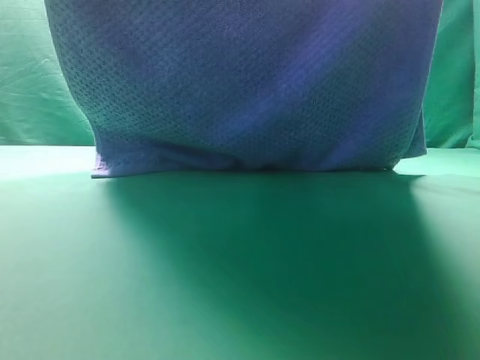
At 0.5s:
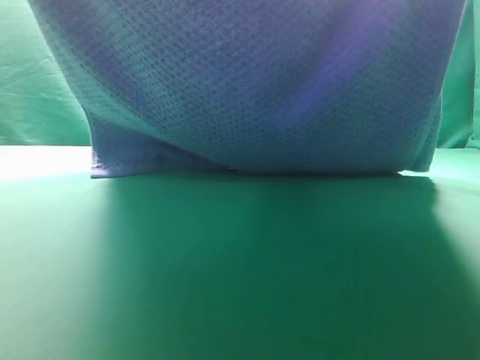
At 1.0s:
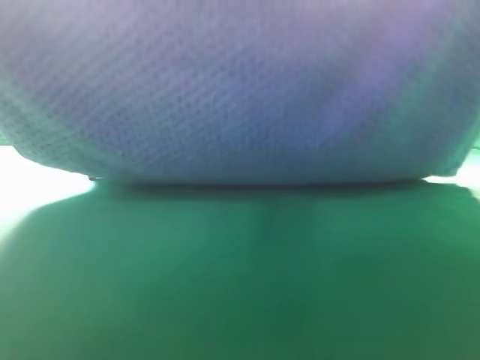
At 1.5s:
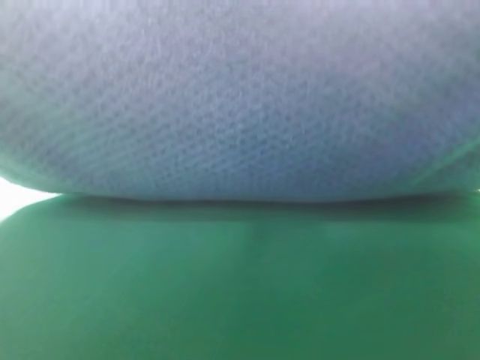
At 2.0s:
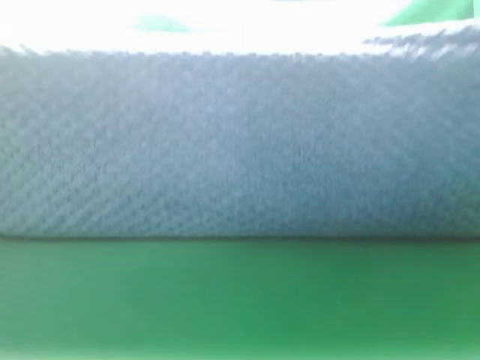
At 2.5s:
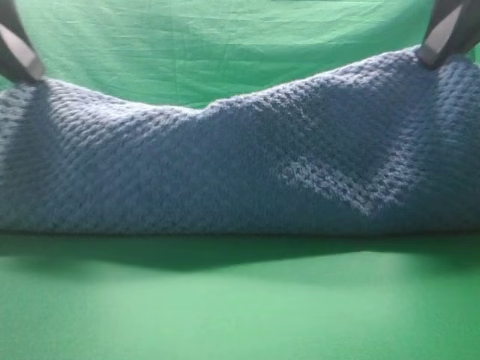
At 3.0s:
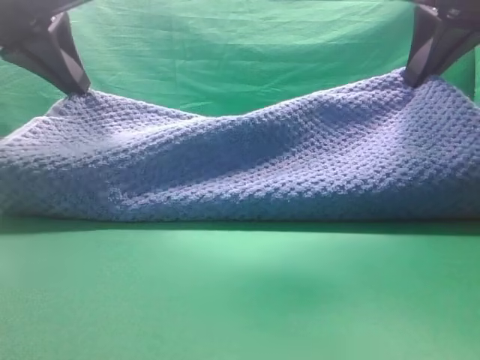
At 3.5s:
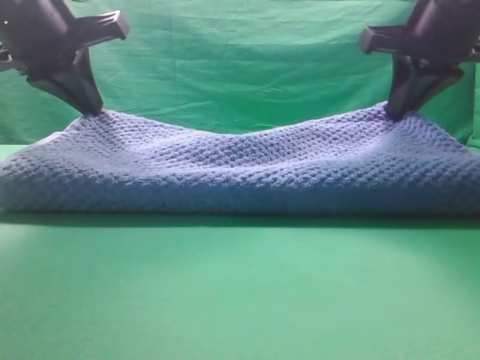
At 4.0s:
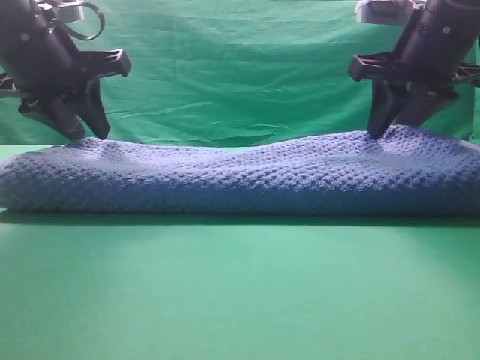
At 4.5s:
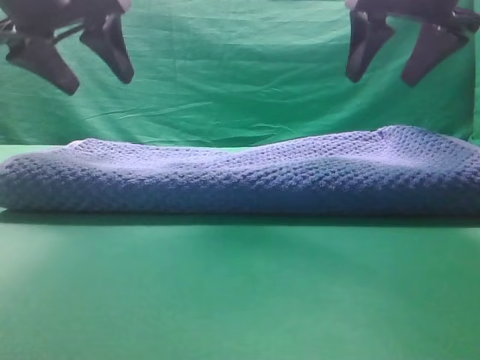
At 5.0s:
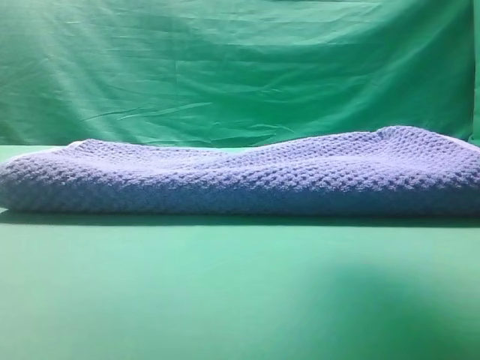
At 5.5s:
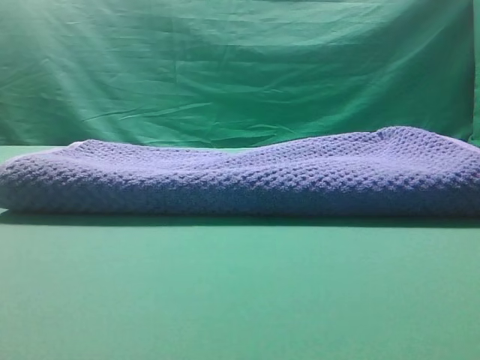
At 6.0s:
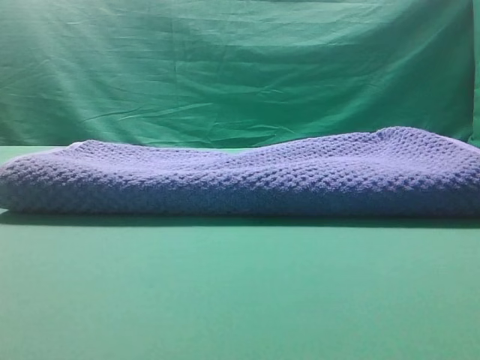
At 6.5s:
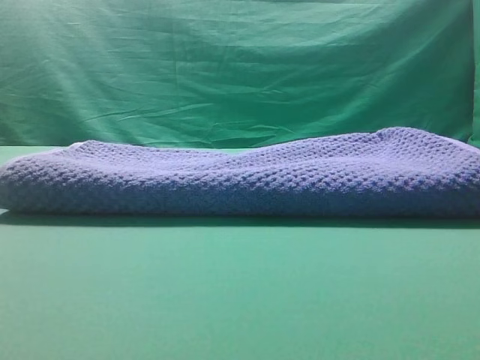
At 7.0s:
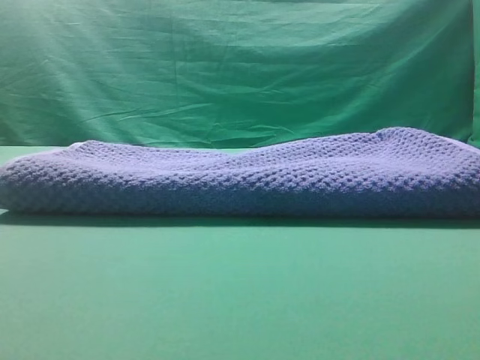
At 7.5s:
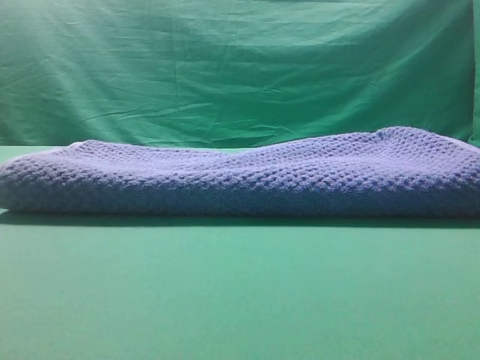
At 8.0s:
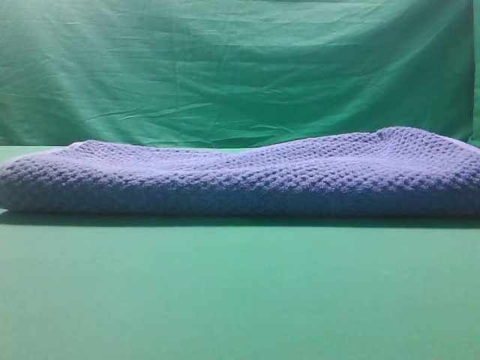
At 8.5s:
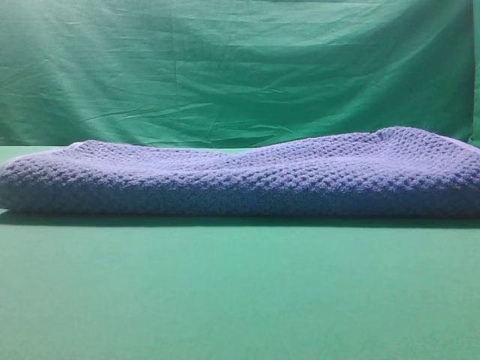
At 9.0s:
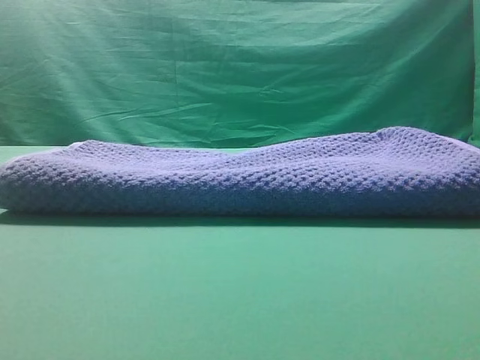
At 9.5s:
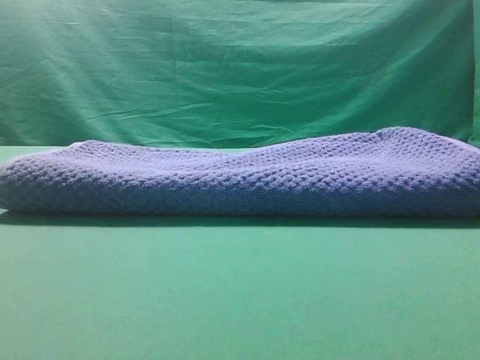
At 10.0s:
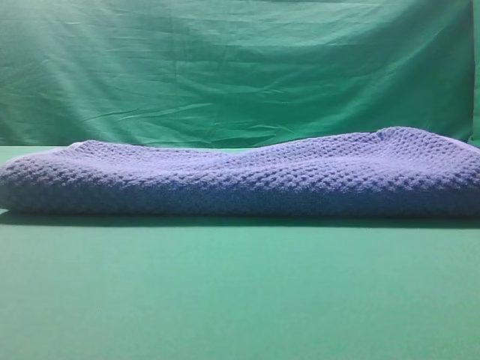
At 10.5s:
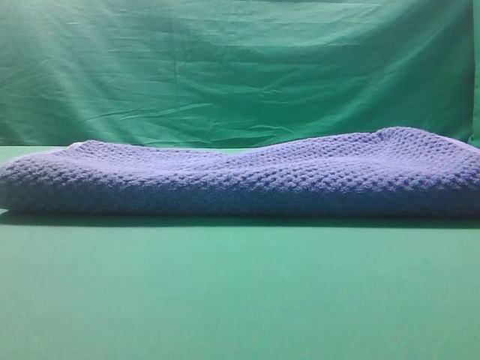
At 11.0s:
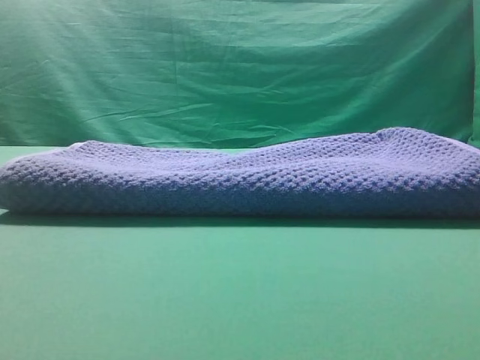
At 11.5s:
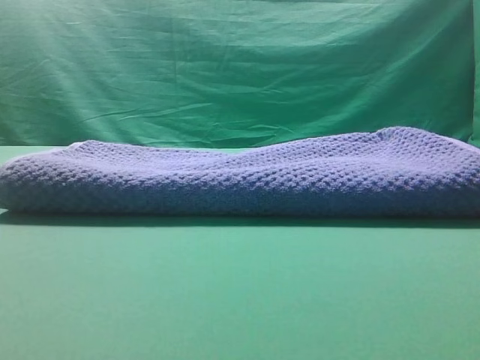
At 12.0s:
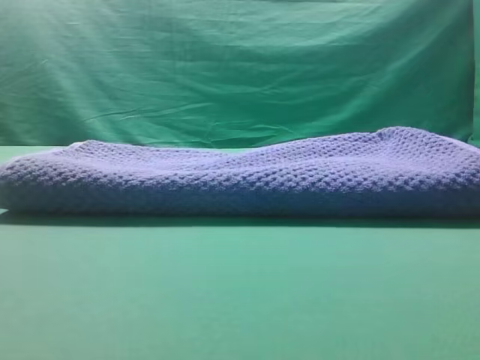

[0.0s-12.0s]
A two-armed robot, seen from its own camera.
Task of the whole recording: fold the towel on the table twice.
Step, 0.0s to 4.5s: Fold the towel twice on the table.

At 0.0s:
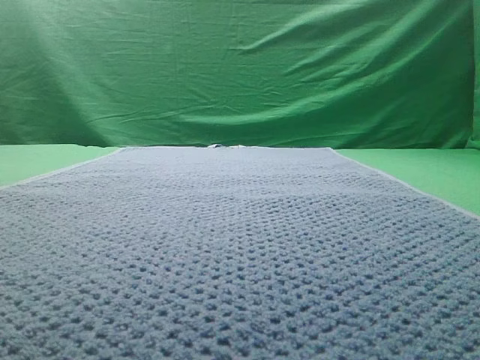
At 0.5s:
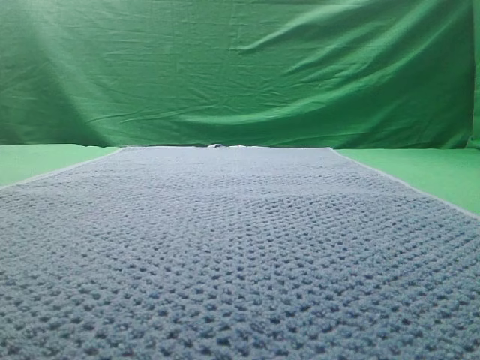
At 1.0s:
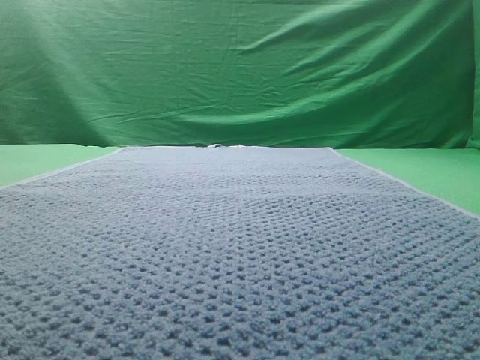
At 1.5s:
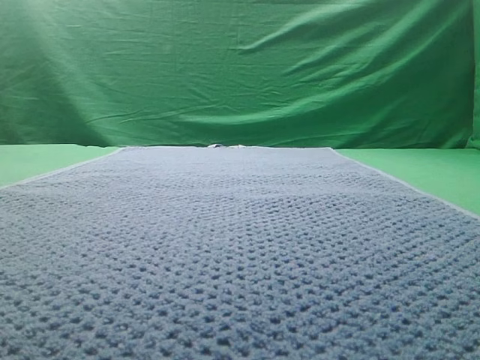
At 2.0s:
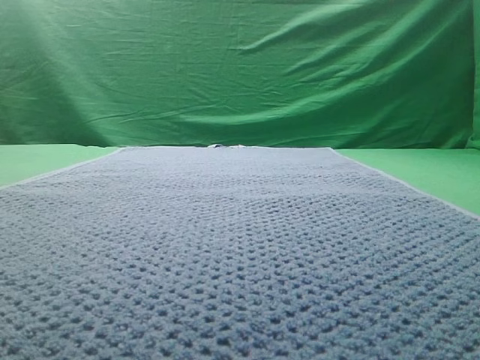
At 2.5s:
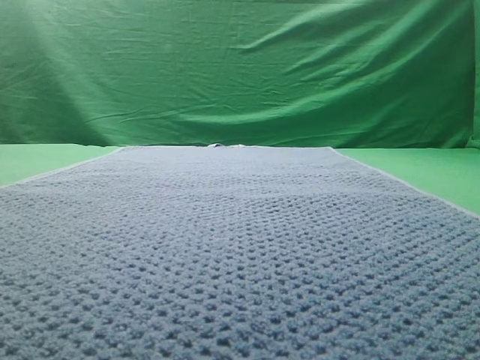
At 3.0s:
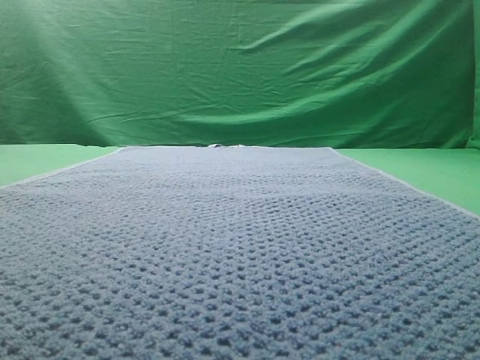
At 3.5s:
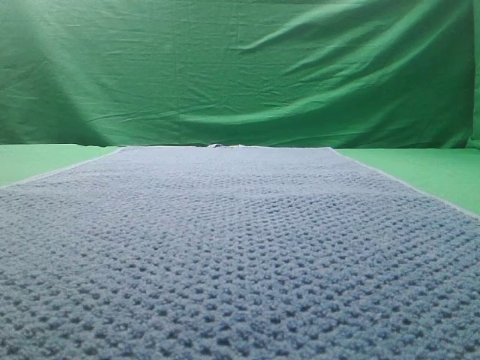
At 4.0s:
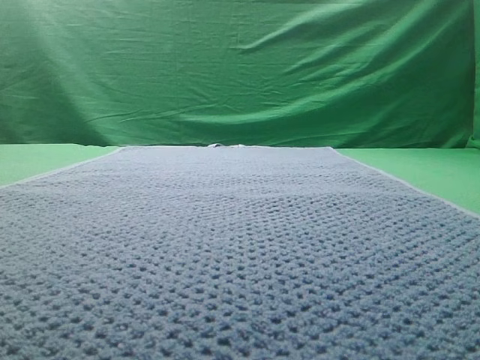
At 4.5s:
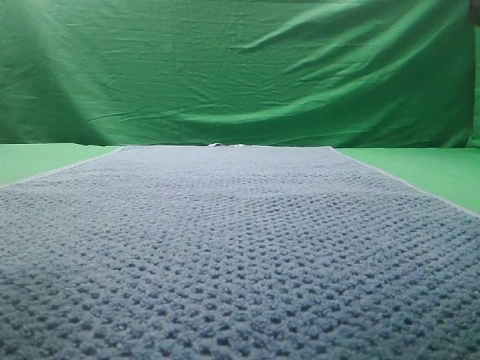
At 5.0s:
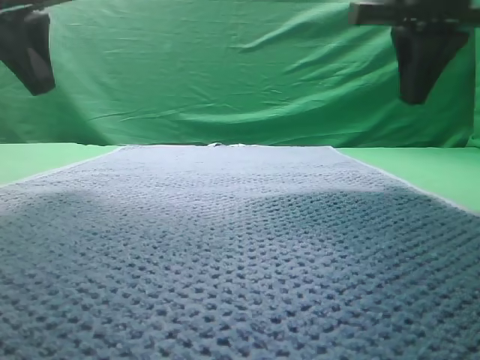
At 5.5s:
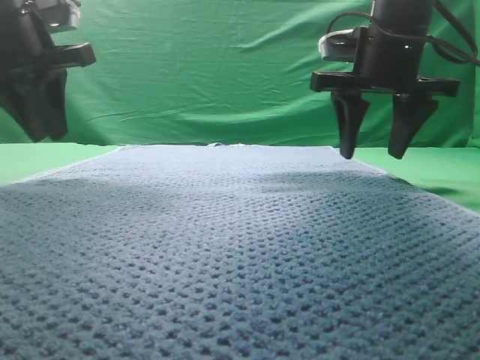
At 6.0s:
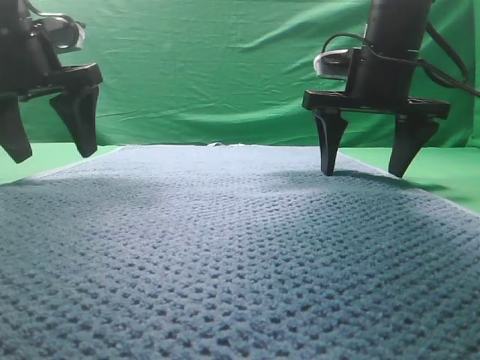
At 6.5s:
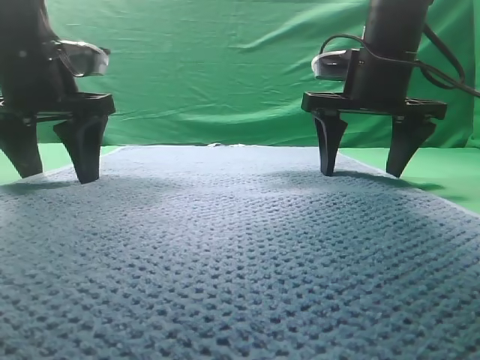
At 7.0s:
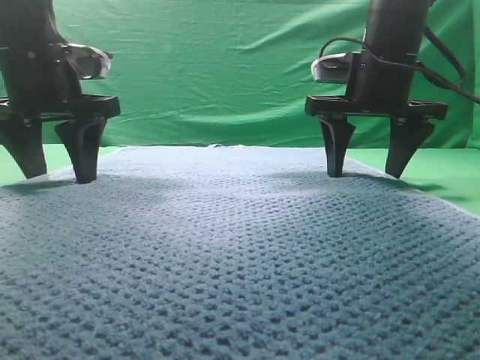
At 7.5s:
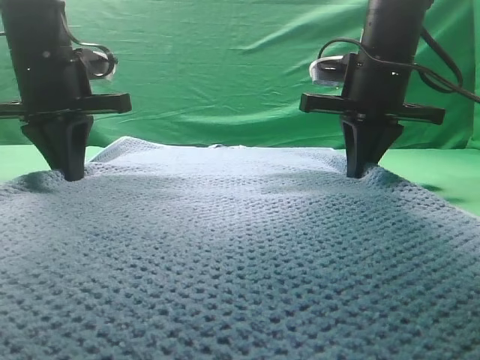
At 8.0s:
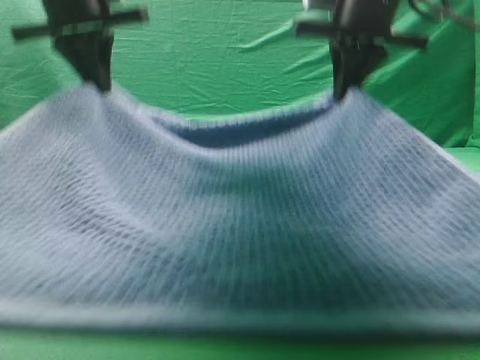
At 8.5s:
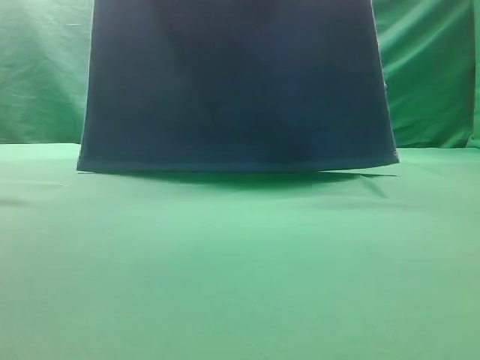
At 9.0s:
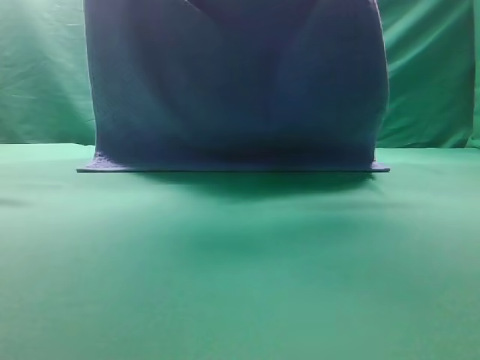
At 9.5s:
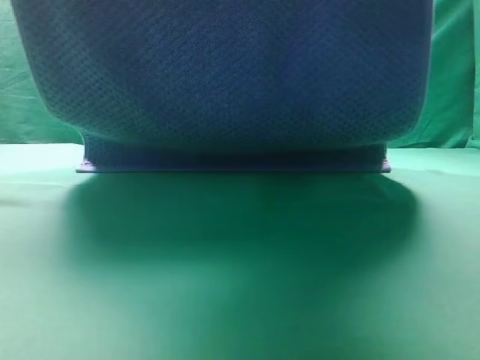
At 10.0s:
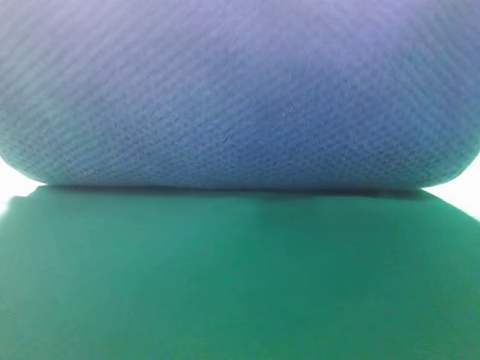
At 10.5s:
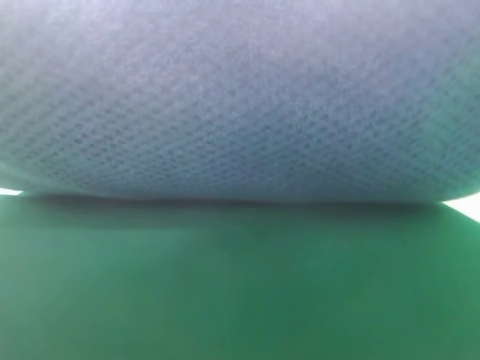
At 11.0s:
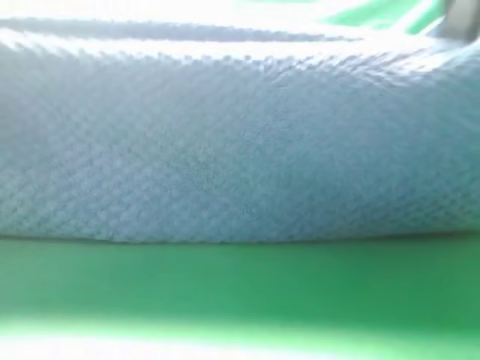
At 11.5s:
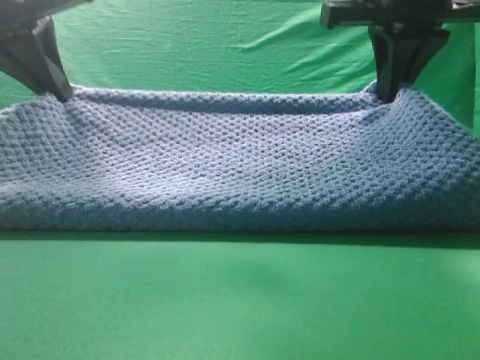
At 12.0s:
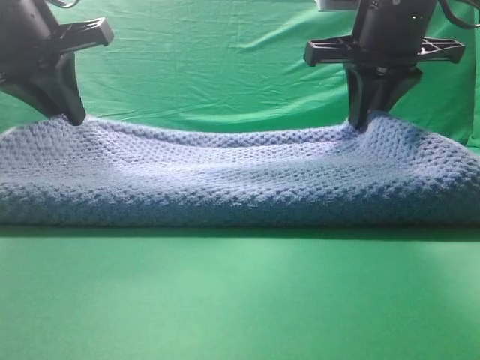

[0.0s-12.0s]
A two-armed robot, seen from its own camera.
Task of the whole recording: fold the towel on the table twice.
Step, 0.0s to 8.0s: pick up the towel with two arm.

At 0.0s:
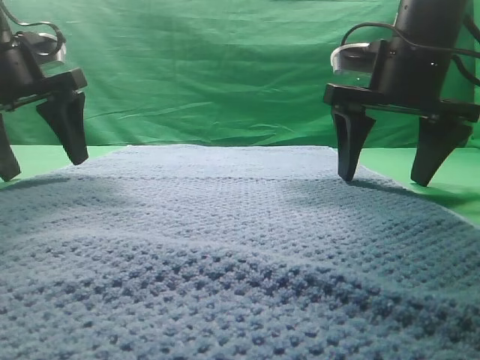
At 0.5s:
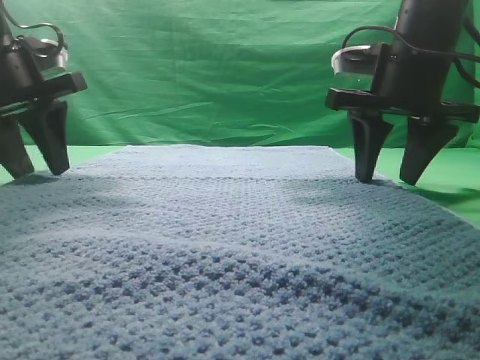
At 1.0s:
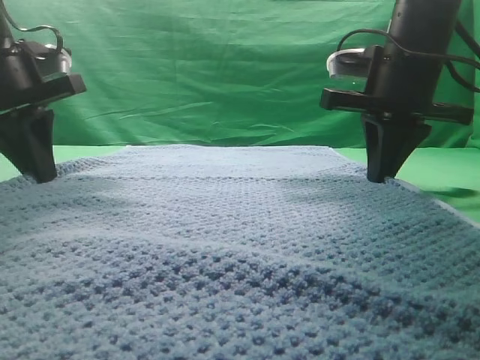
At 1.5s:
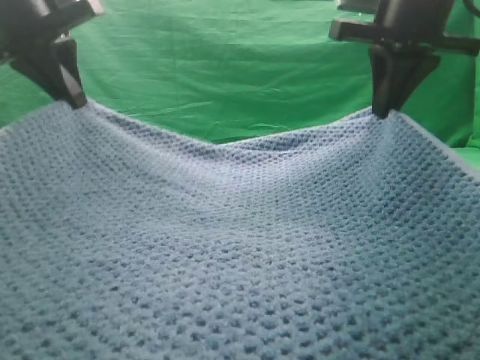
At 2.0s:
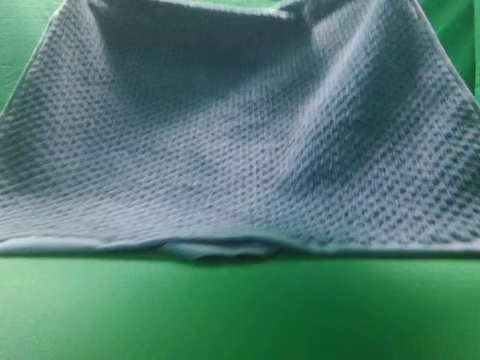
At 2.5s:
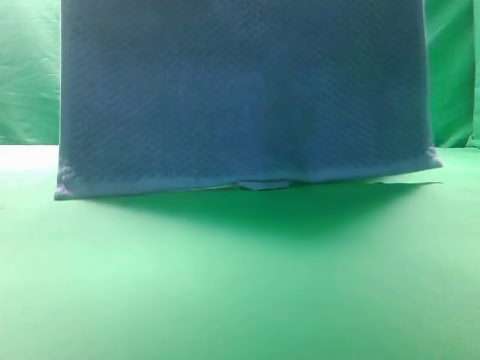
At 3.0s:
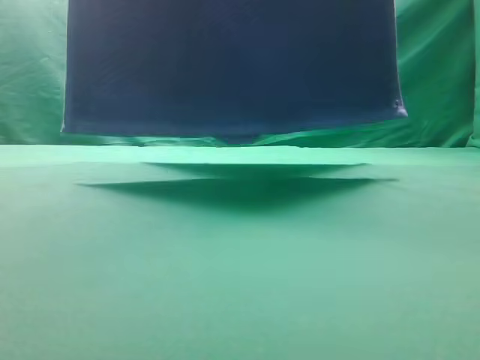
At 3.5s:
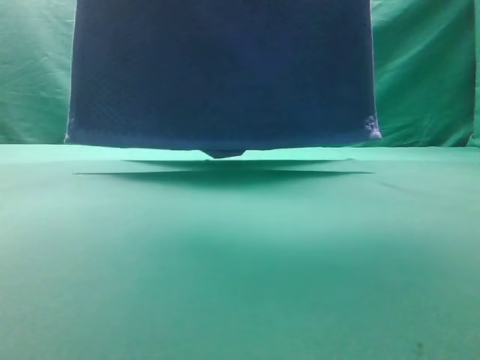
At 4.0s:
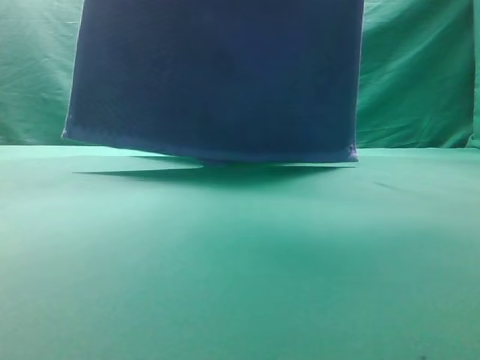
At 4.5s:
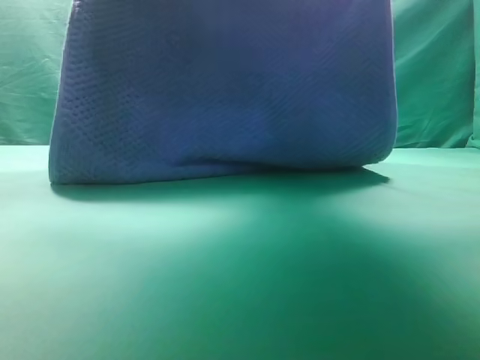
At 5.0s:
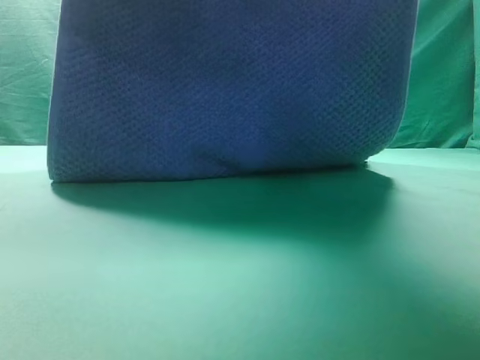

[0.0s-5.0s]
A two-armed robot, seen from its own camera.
Task of the whole recording: fold the towel on the table twice.
Step, 0.0s to 2.5s: pick up the towel with two arm.
